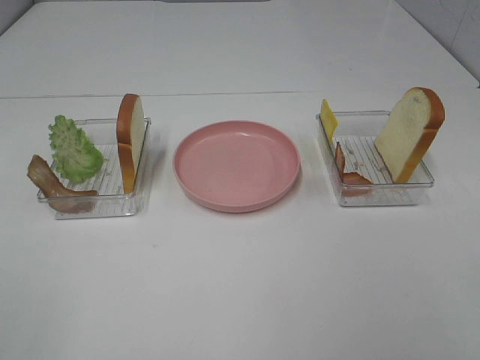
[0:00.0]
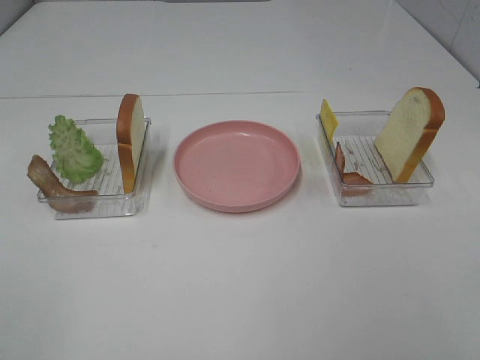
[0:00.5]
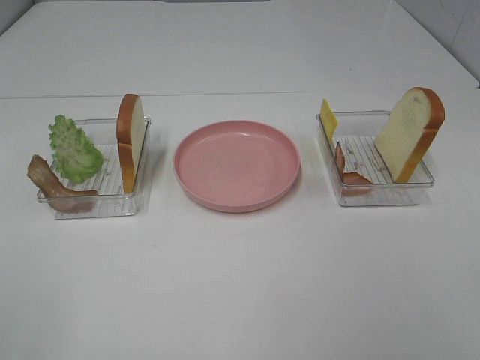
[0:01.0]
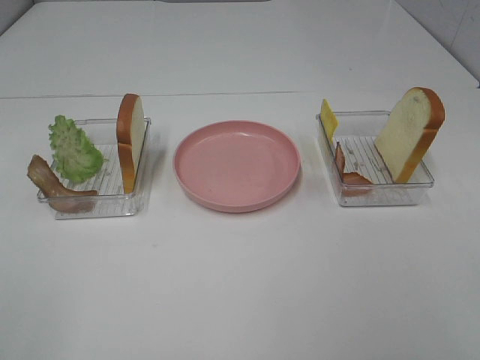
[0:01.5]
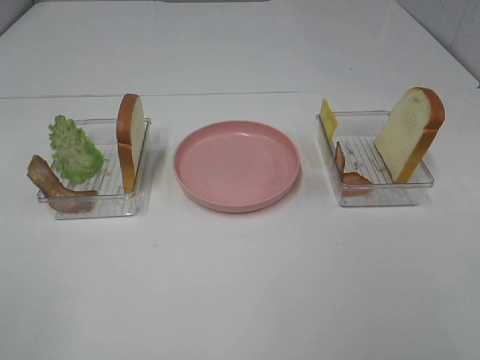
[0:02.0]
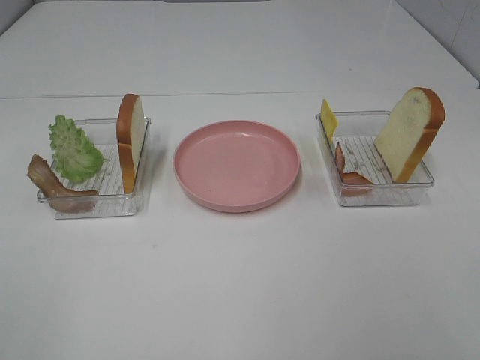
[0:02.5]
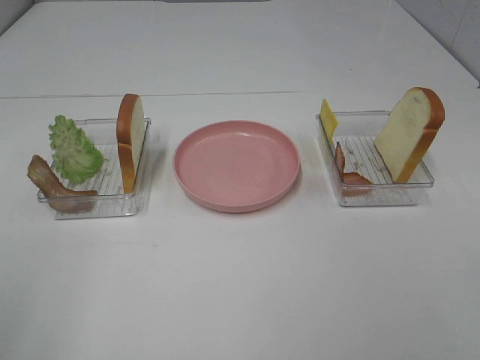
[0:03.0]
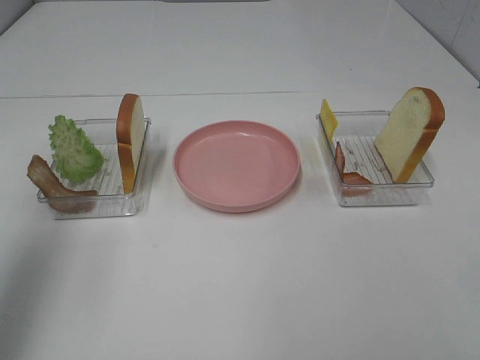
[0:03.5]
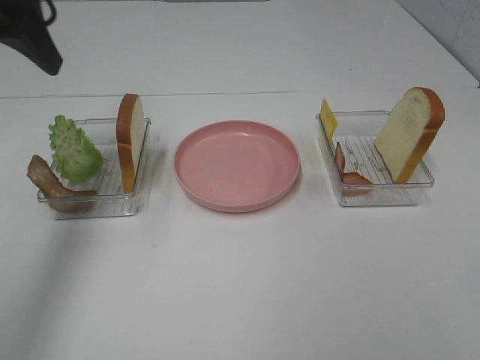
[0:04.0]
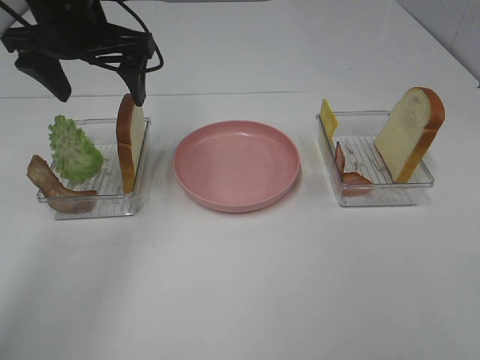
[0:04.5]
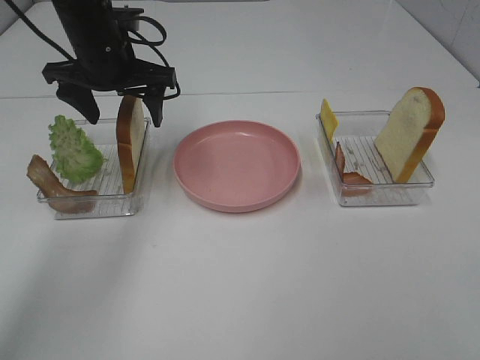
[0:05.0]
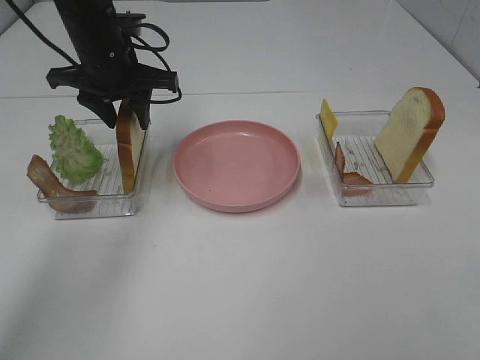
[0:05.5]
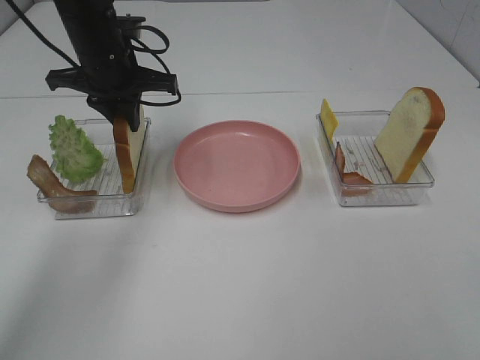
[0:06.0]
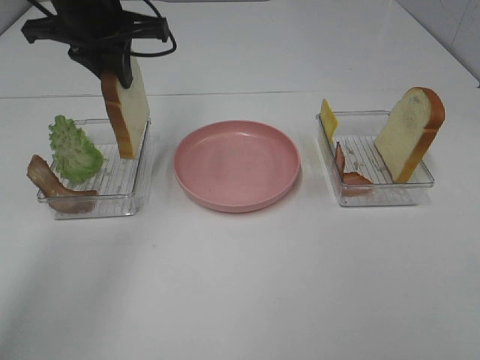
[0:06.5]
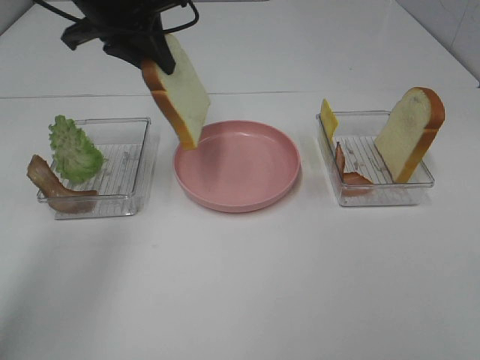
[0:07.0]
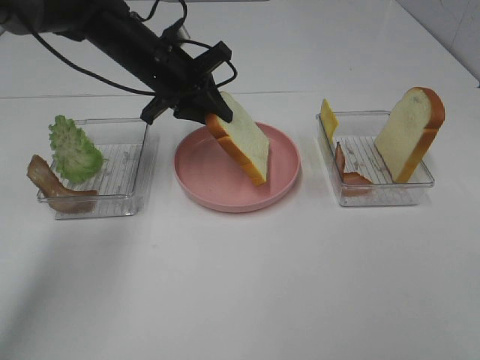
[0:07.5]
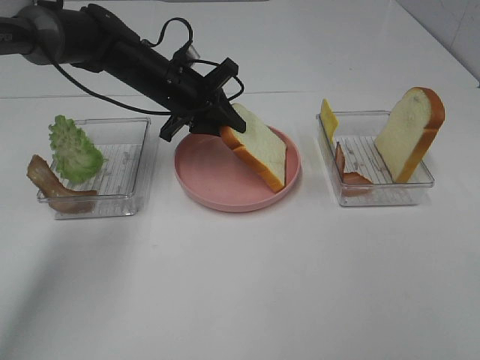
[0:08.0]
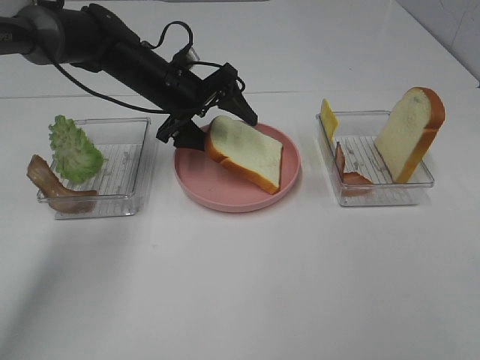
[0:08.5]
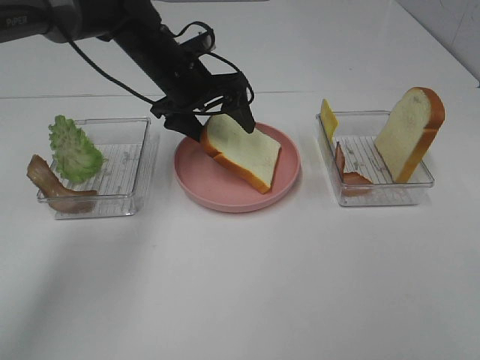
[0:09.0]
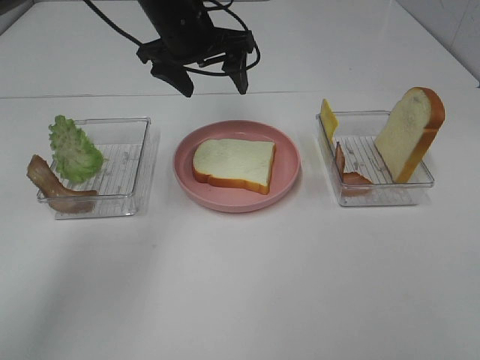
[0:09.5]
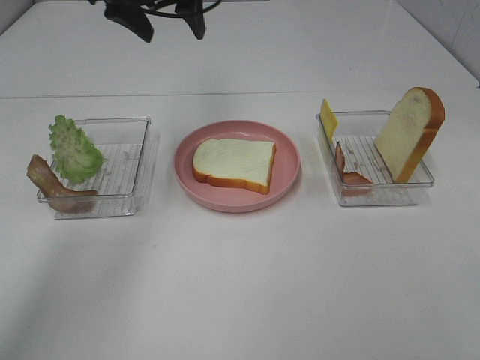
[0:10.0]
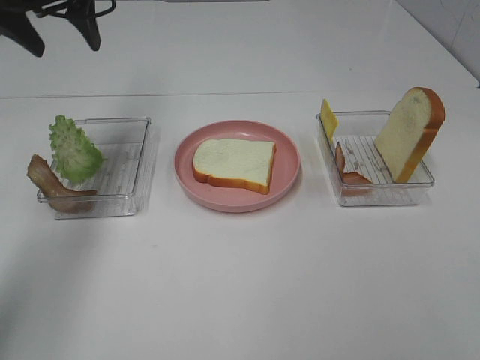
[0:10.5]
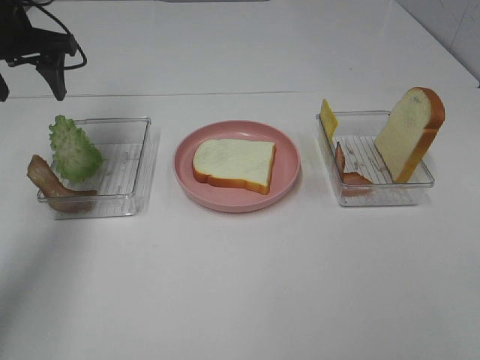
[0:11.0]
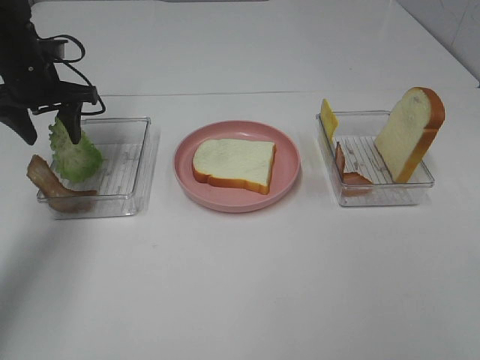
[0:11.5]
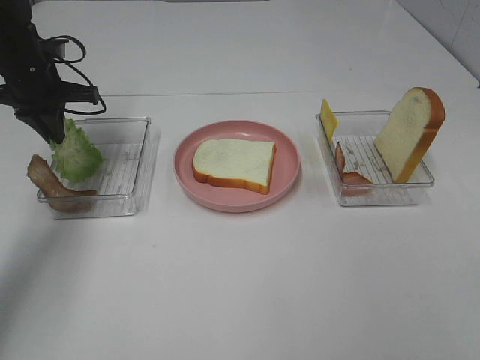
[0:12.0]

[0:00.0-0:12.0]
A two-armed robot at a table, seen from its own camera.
Task of the whole recording: Make sandwiches.
Step, 0.0 to 5.5 s: Left hand:grab the bread slice.
Step, 6.0 to 9.0 s: Left hand:place the bread slice on the plate.
Step, 9.5 to 12.0 s: Left hand:grab the lettuce slice.
0.0 to 2.0 s: Neither gripper changes place.
2.0 to 4.0 s: The left gripper moves forward, some 35 cm.
4.0 to 6.0 s: The left gripper travels downward, forward and to the right by some 20 cm, and closes up.
6.0 to 8.0 s: The left gripper heads downward and to the right, covering about 10 cm.
8.0 to 10.0 s: The left gripper moves upward, about 15 cm, and opens its fingers.
10.0 to 12.0 s: The left gripper is displaced to the left and downward by about 20 cm, and closes.

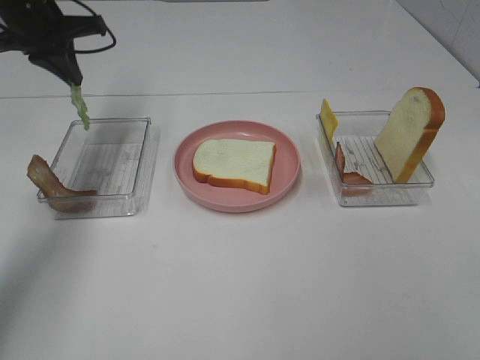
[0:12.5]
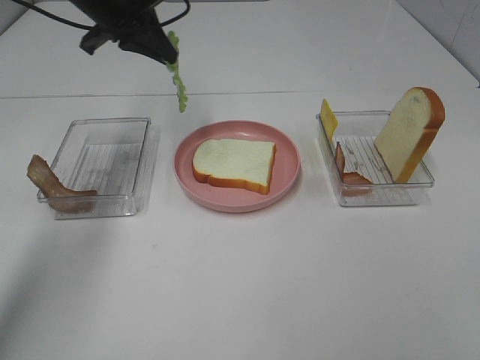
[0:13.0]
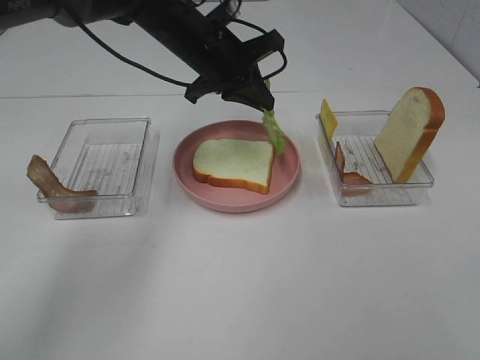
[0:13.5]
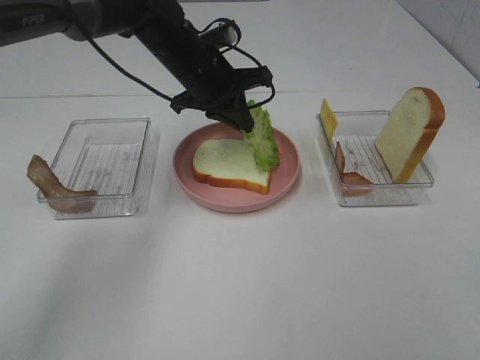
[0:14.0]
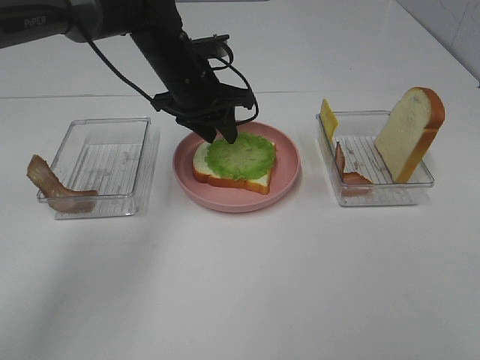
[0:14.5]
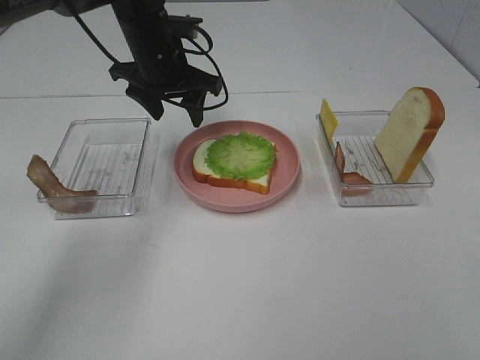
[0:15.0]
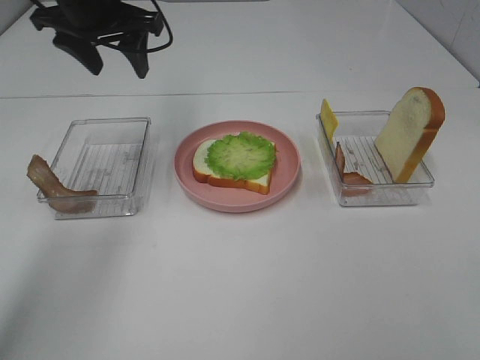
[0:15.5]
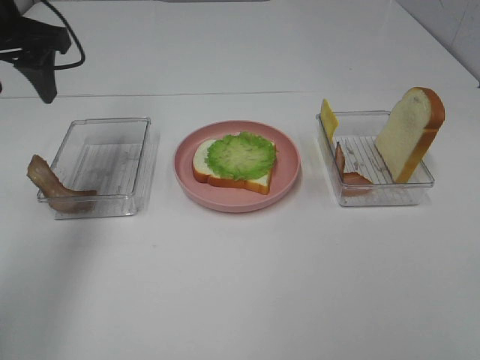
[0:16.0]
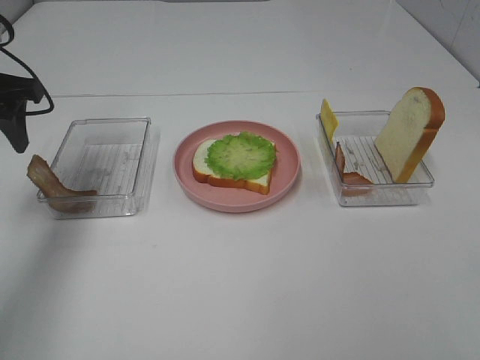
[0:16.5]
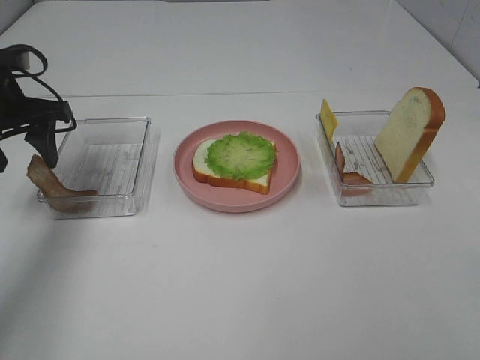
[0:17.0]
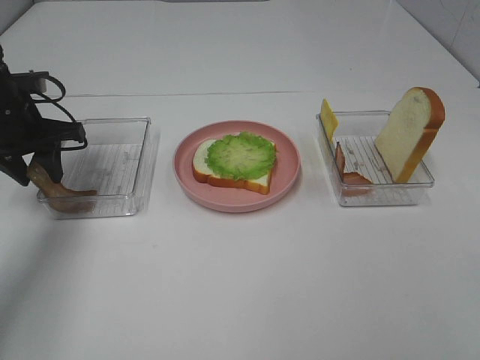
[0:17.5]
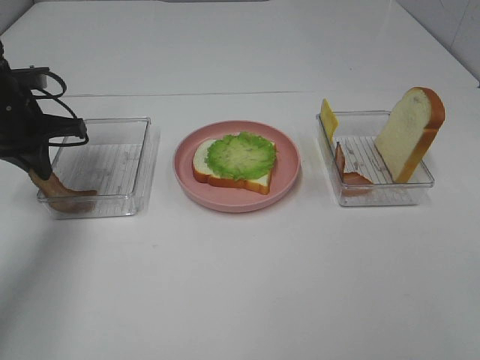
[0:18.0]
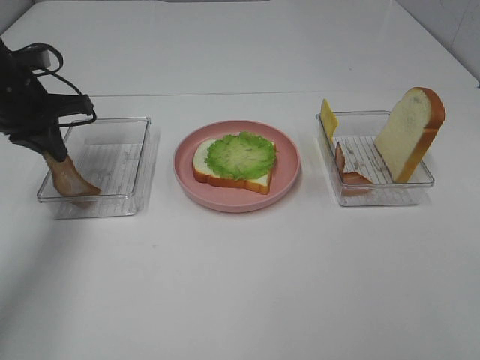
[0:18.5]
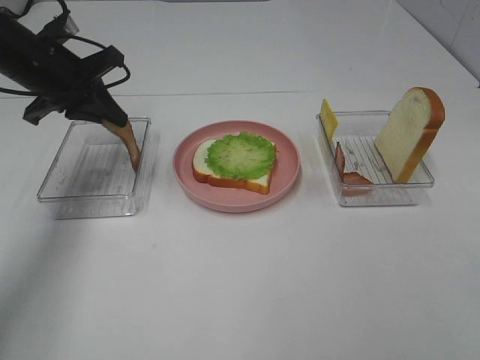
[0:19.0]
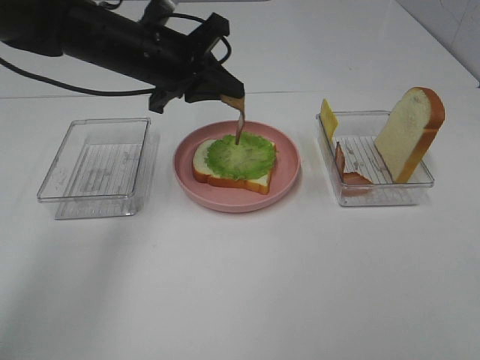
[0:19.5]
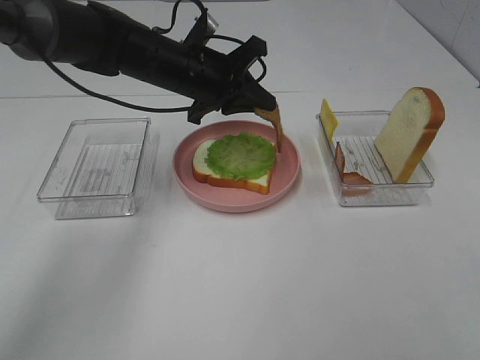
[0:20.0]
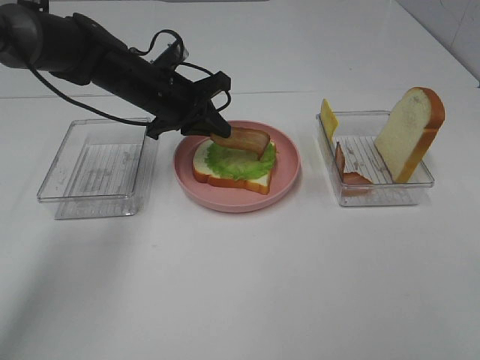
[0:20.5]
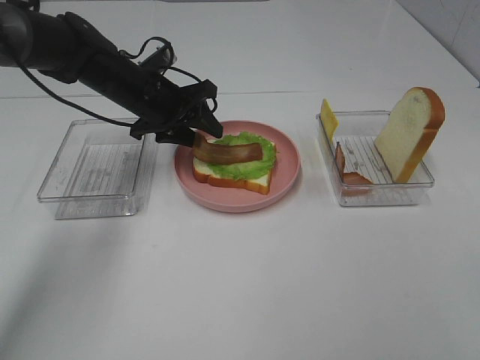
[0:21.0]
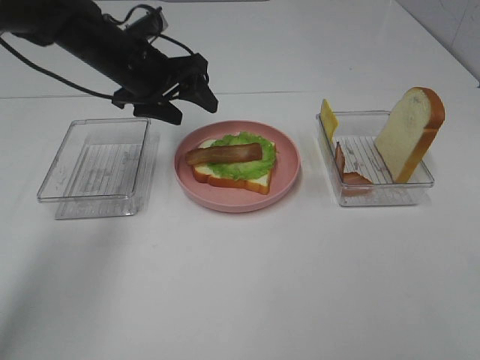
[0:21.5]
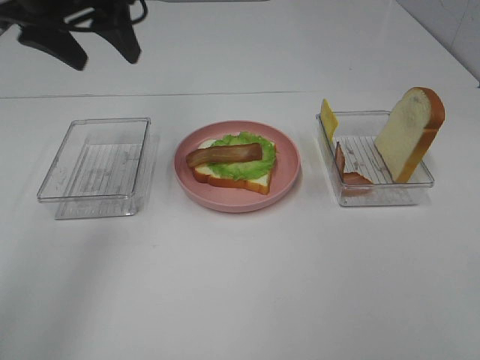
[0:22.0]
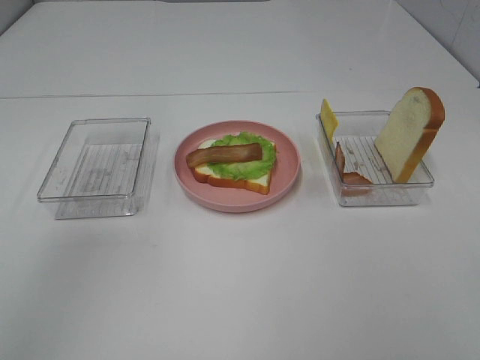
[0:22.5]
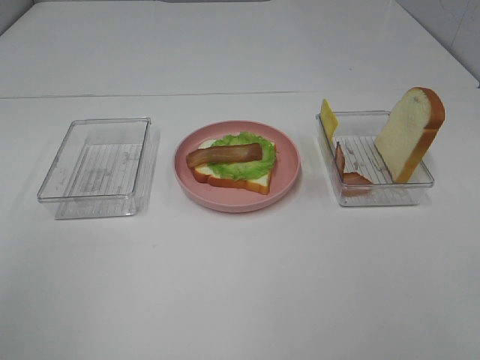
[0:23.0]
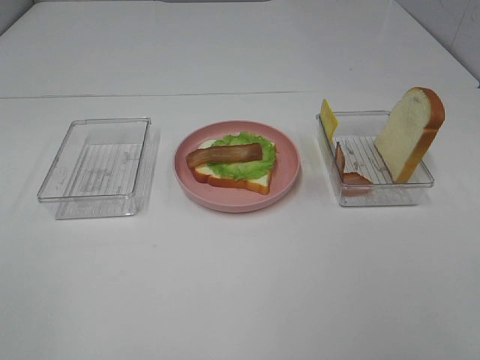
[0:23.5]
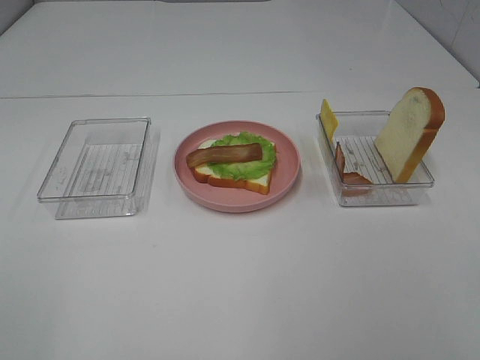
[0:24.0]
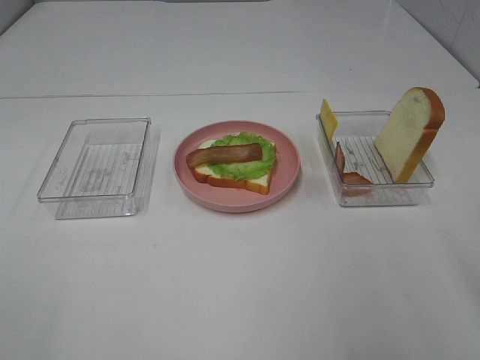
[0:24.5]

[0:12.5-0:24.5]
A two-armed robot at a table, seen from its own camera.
Task of the whole recording: Make sandwiches.
Step, 12.5 to 14.5 s: Left hand:place the lettuce slice on the bread slice.
Step, 15.0 to 18.5 s: Left hand:grab the bacon.
Step, 19.0 to 21.5 s: Left hand:place bacon on lettuce slice.
12.5 to 14.5 s: The left gripper is displaced to the right and downward by some 20 cm, and opens up.
14.5 to 16.5 s: The left gripper travels to the left and backward by about 25 cm.
16.5 to 18.5 s: The left gripper moves downward, about 5 cm, and closes its fingers.
18.5 to 20.5 s: The left gripper heads to the right, covering about 15 cm.
20.5 to 22.5 s: The left gripper is displaced upward, backward and to the left by roughly 40 cm, and opens its fingers.

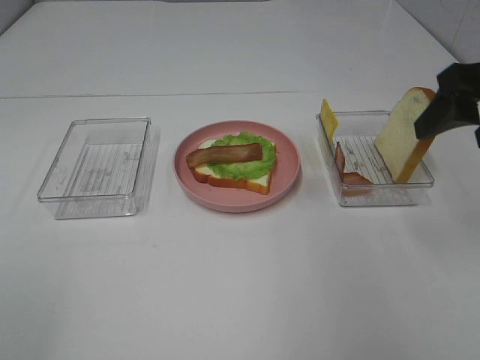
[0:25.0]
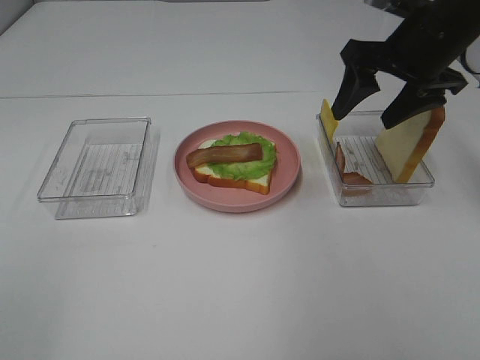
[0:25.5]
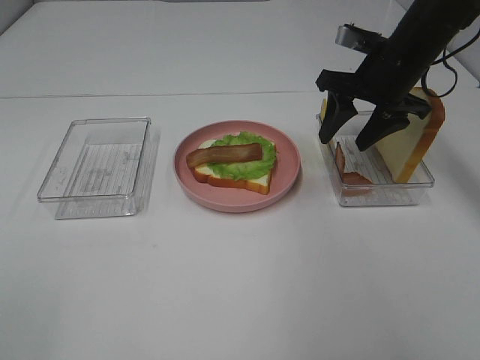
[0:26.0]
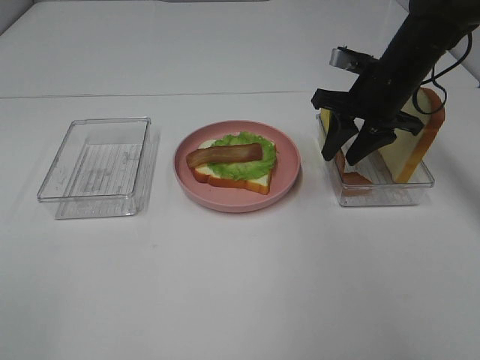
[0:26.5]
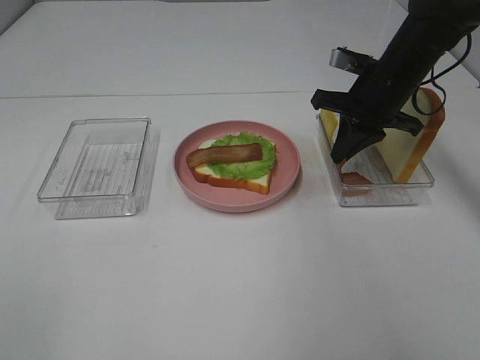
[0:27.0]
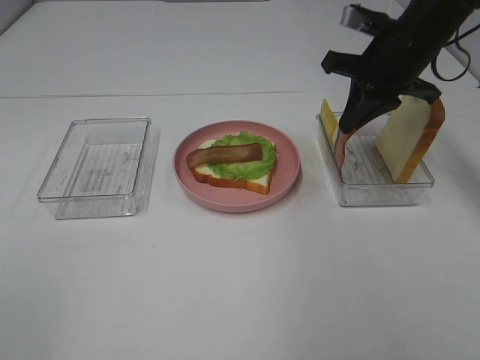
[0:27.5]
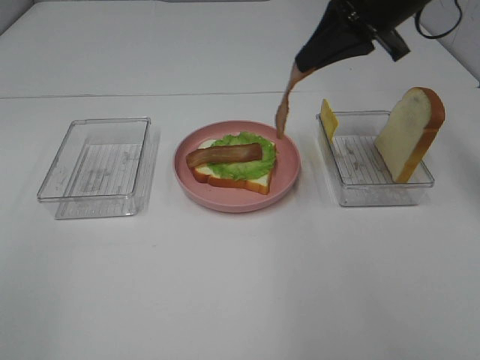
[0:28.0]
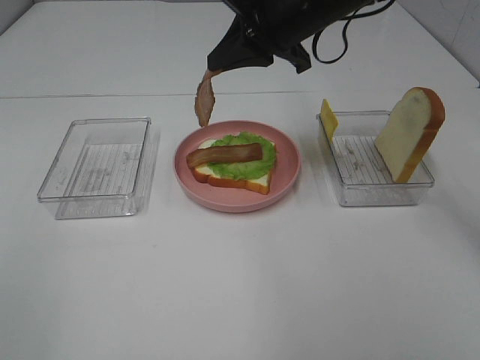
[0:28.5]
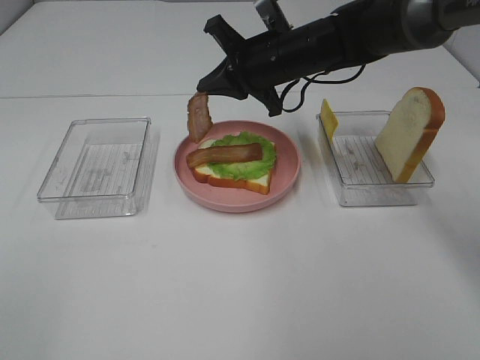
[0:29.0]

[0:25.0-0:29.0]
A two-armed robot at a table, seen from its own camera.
Task of the whole recording: Make sandwiches.
Step, 25.0 to 27.0 s: Right hand:grab the bacon.
25.0 to 27.0 s: The right gripper moves forward, downward and to the left, roughly 20 cm, and closes.
27.0 to 29.0 s: The right gripper shifts approximately 15 cm to the left, and moves roughly 15 cm upward and comes back.
